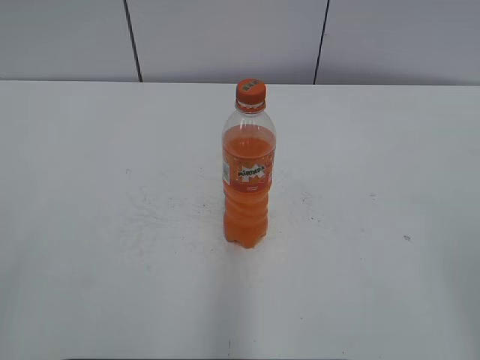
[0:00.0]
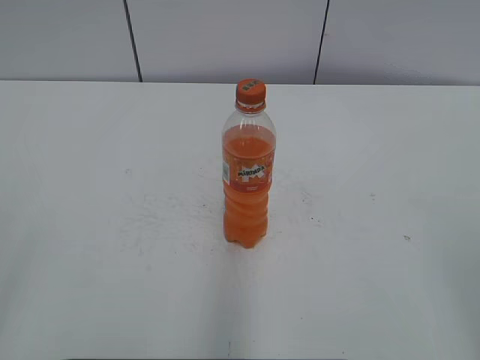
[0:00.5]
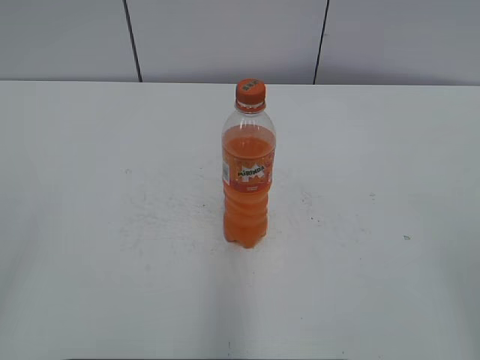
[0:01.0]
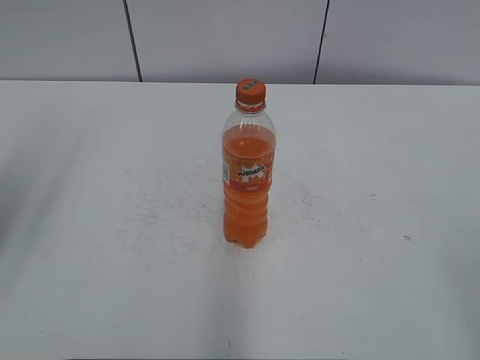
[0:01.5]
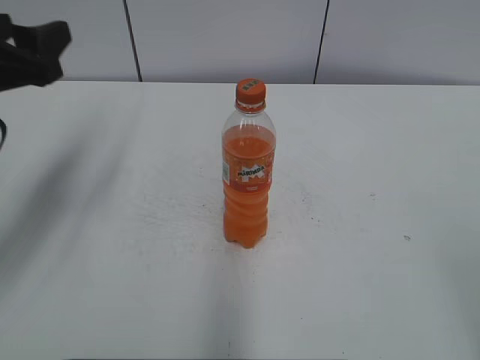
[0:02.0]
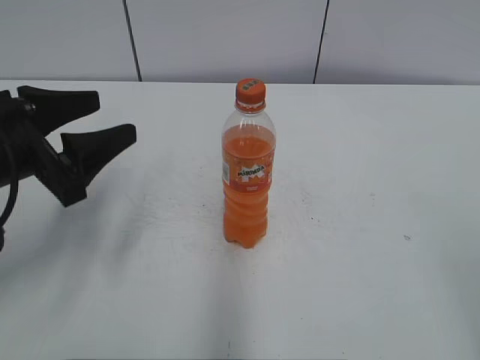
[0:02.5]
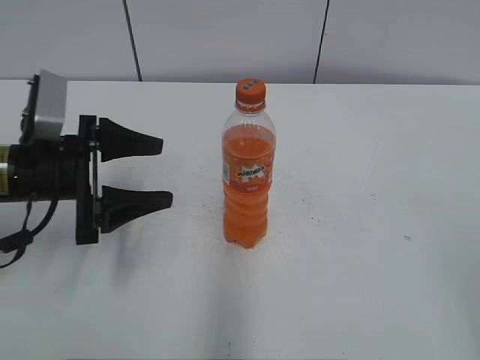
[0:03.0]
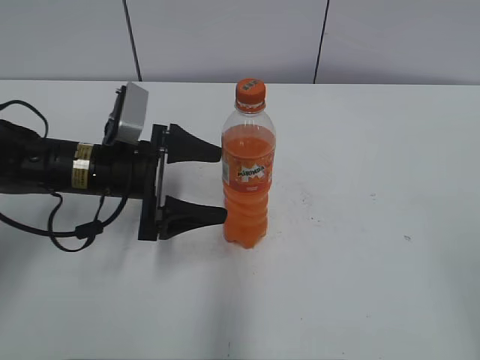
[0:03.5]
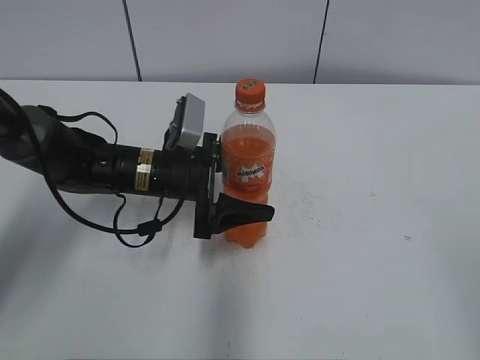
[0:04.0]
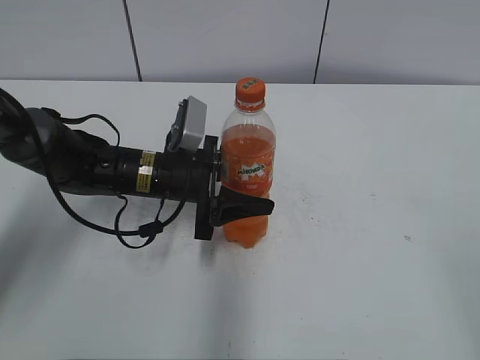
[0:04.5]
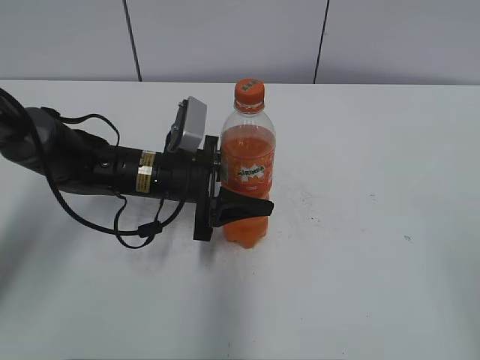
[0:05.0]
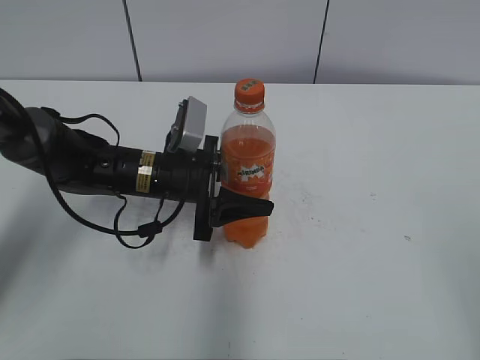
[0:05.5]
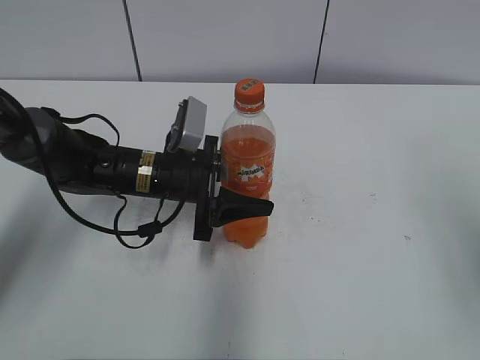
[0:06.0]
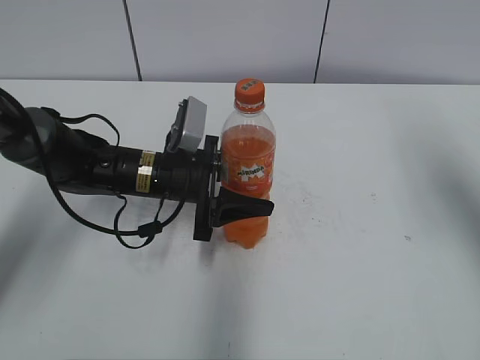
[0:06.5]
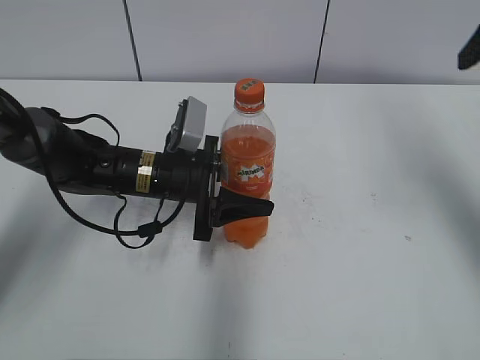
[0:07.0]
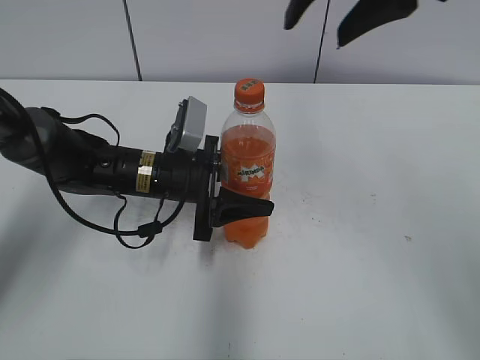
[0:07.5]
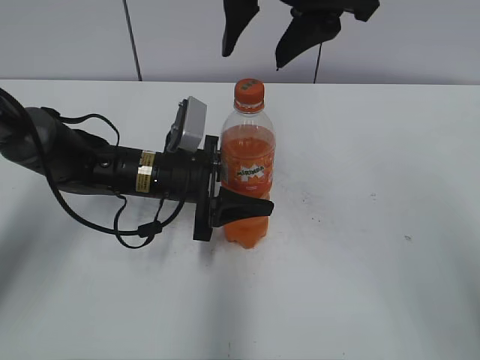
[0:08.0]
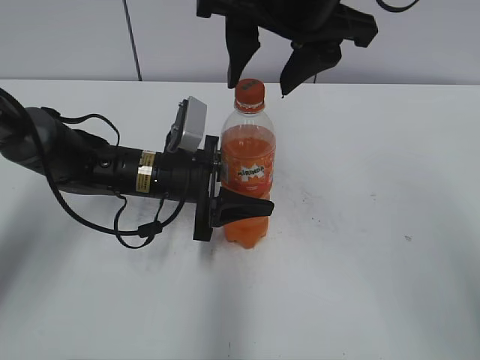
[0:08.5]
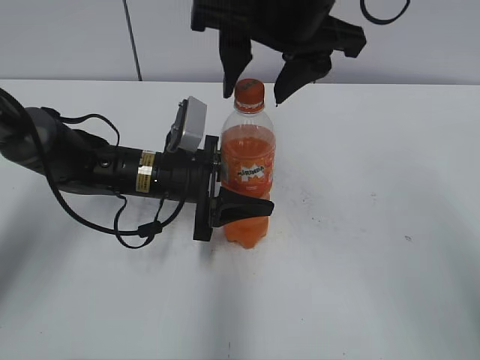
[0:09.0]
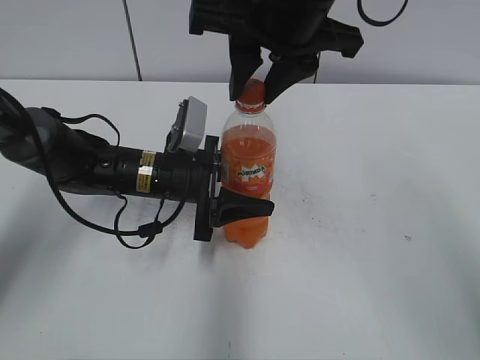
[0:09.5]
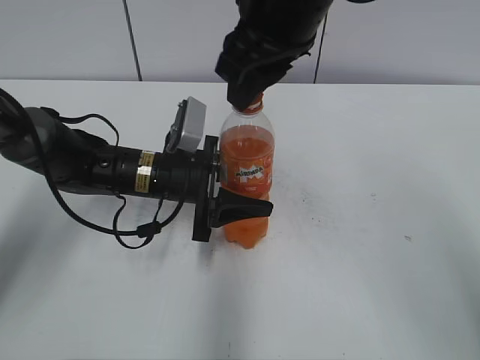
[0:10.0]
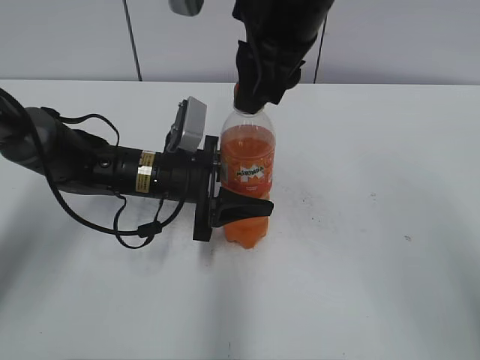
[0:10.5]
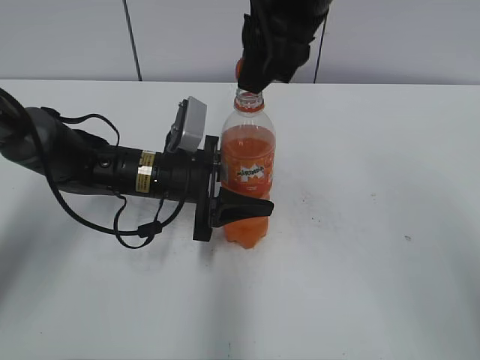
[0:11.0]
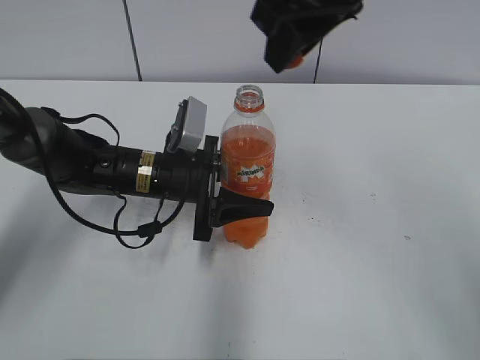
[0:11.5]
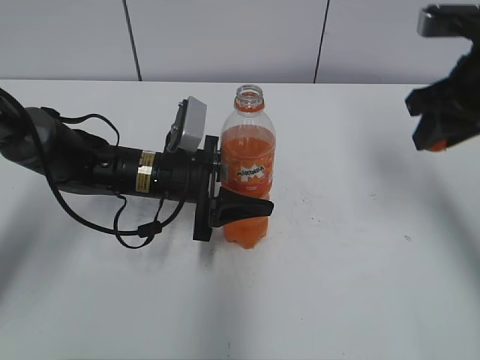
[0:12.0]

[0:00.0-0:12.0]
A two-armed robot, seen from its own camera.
Step, 0:00.0 to 0:04.5: Grab the Mirinda with the left hand.
0:02.0 to 0:04.0: The left gripper goes roughly 25 cm downward, to the right and forward, and opens its fingers.
0:04.0 to 0:06.0: The left gripper closes up; the right gripper travels forward by roughly 10 cm.
0:06.0 to 0:08.0: The right gripper is displaced to the left and forward by approximately 30 cm.
0:08.0 to 0:10.0: The right gripper closes.
0:10.0 to 0:12.0: The right gripper is displaced to the right by approximately 20 cm.

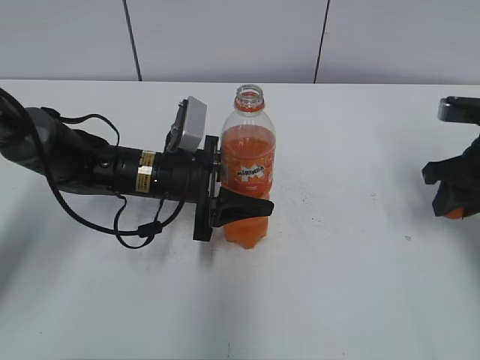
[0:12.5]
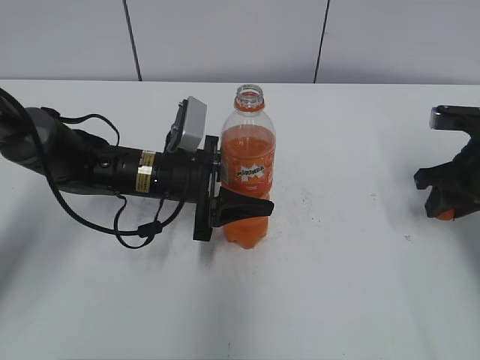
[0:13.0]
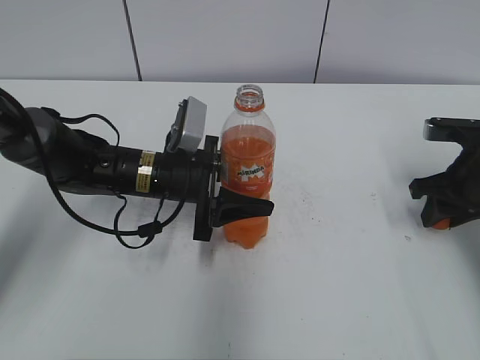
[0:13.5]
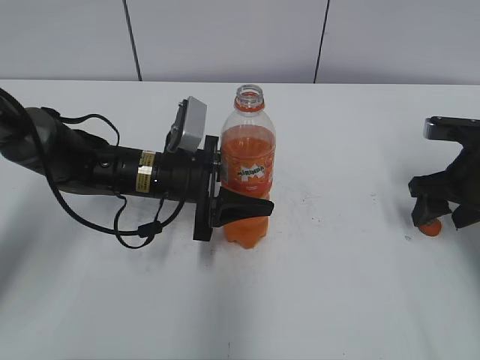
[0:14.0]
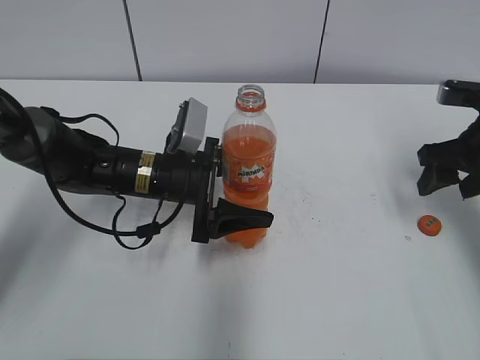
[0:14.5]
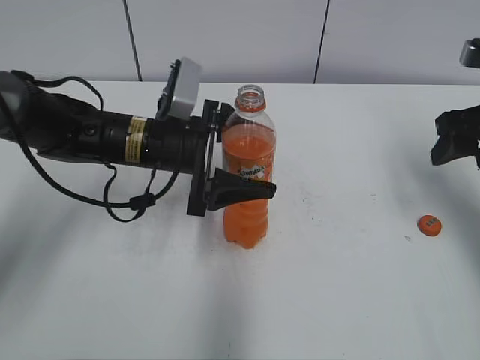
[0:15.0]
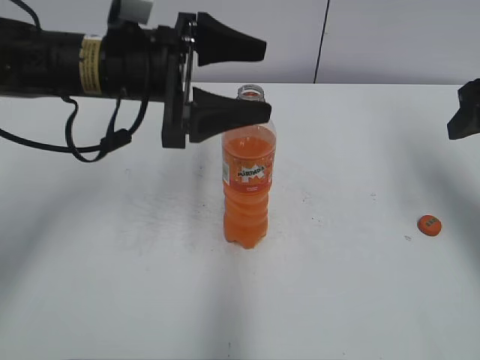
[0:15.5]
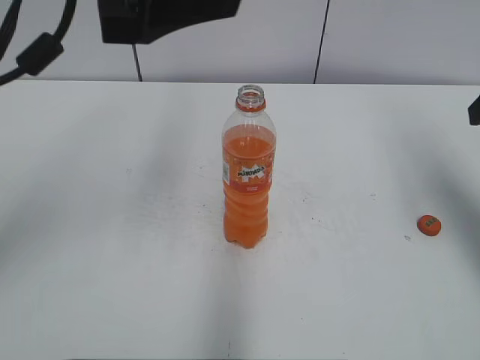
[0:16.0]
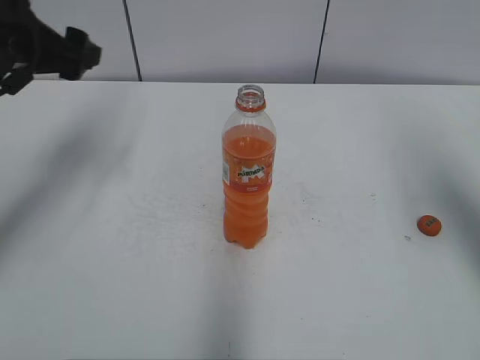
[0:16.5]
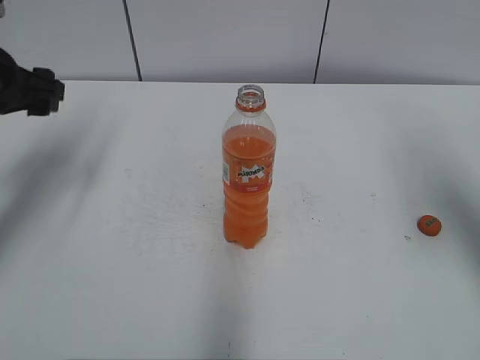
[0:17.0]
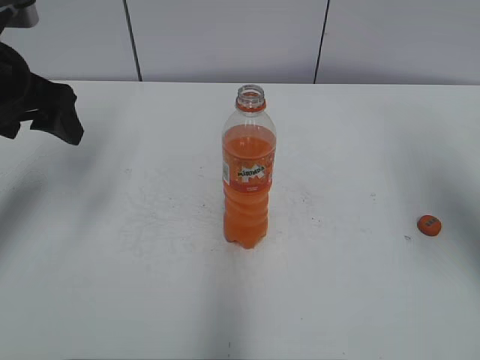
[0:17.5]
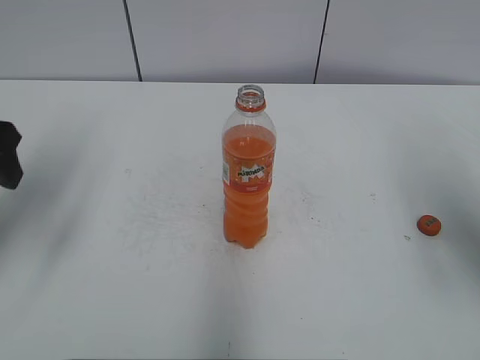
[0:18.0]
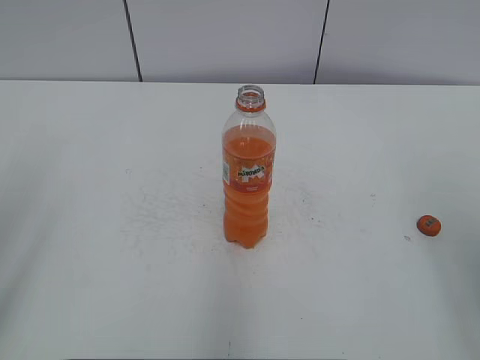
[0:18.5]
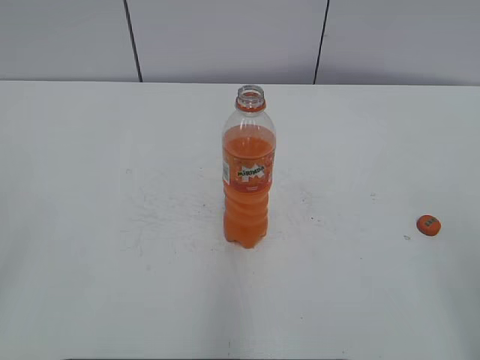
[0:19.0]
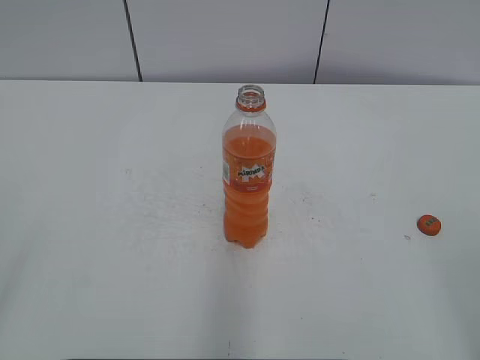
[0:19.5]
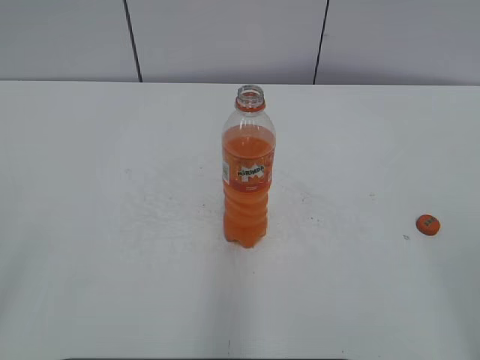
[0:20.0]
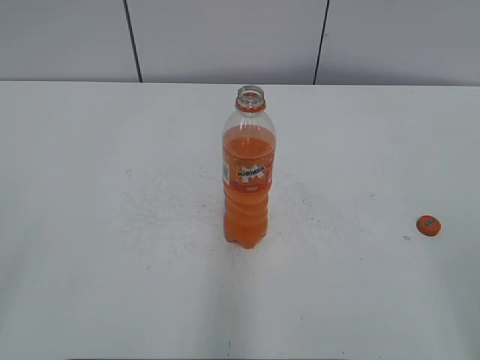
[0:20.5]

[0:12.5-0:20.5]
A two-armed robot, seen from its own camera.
0:12.5 to 0:14.5: The left gripper opens. Meanwhile the right gripper opens.
0:14.5 to 0:16.5: The left gripper goes roughly 25 cm upward and to the left. The right gripper goes approximately 15 cm upward and backward.
0:16.5 to 0:18.5: The left gripper heads backward, covering some 20 cm. Meanwhile the right gripper moves backward, some 15 cm.

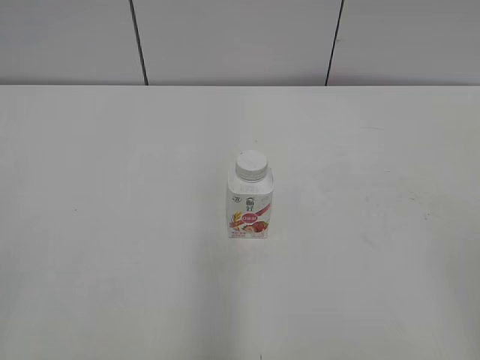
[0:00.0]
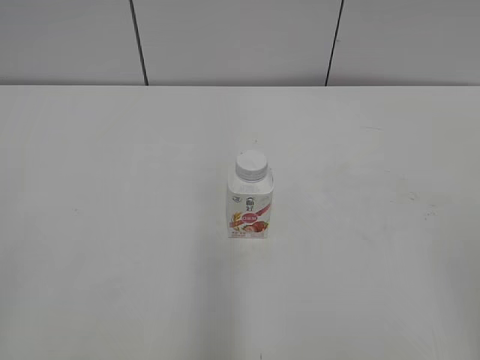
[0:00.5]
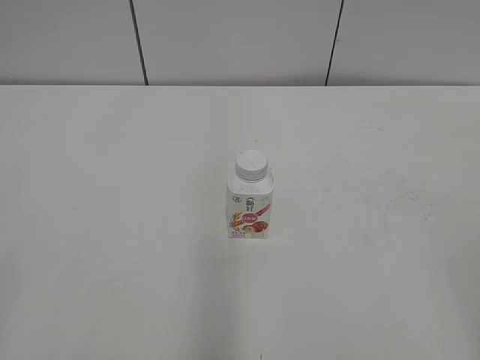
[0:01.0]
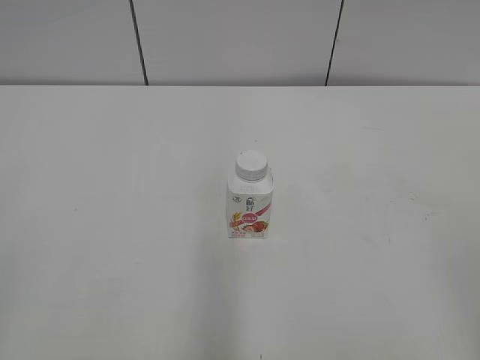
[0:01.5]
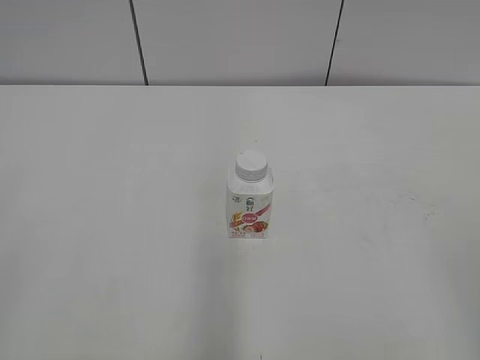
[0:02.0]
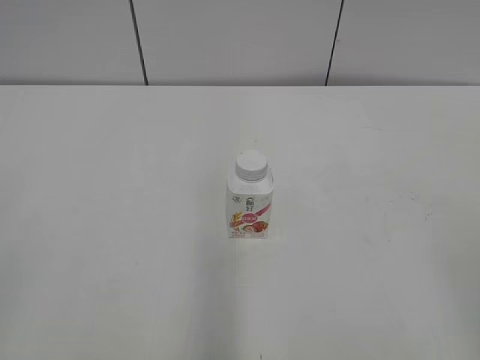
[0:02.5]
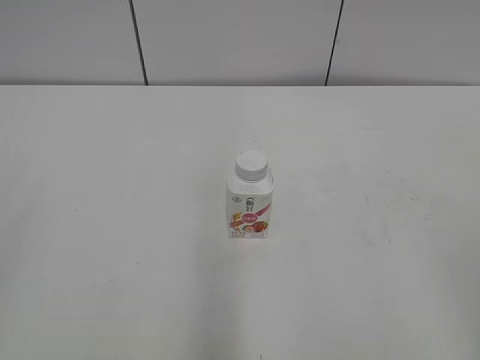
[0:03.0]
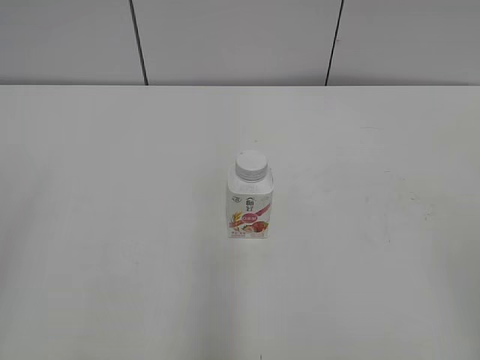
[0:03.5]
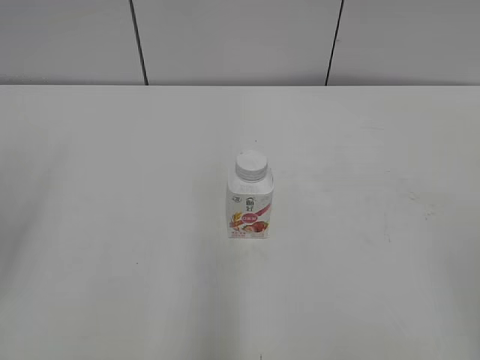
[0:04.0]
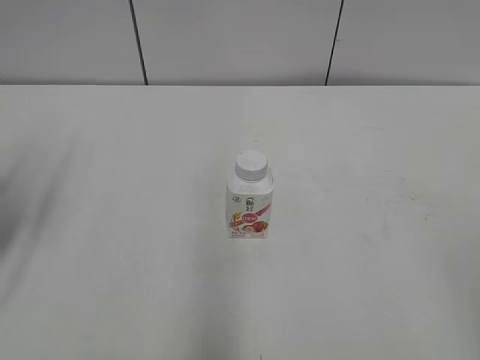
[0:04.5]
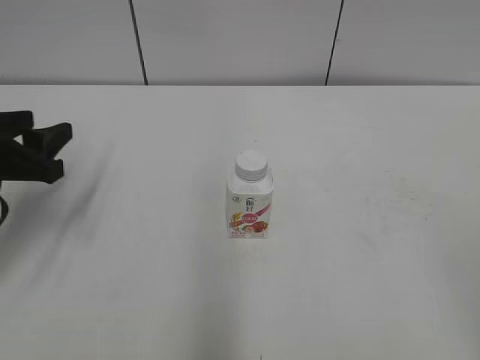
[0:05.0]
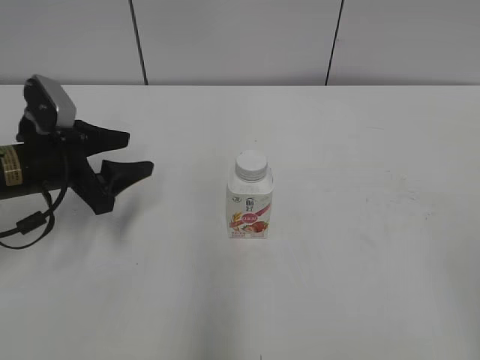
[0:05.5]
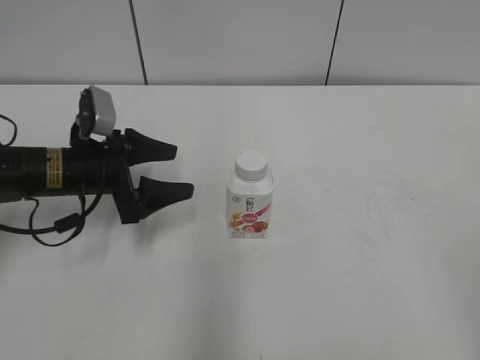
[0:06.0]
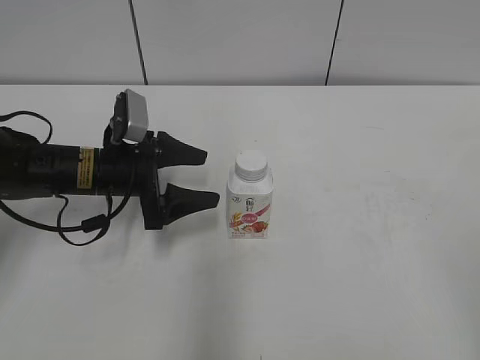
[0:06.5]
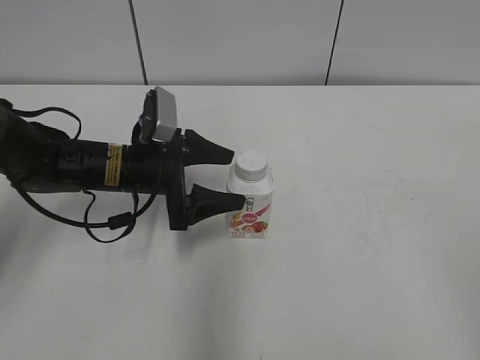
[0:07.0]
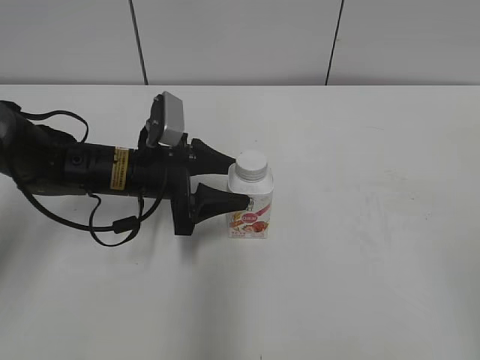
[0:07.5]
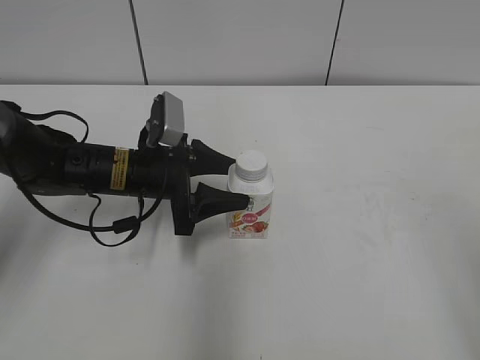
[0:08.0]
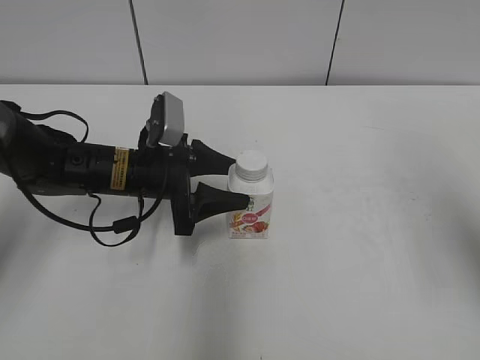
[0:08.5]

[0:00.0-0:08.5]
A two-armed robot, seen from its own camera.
Step, 0:00.0 to 0:07.5: Grab the Yili Changqing with the left hand.
0:04.0 to 0:06.5: The left gripper shifts about 35 cm forward, downward and to the right, and opens up.
0:06.5 to 0:08.5: The right gripper travels forward by some 15 cm. Meanwhile the left gripper closes up.
